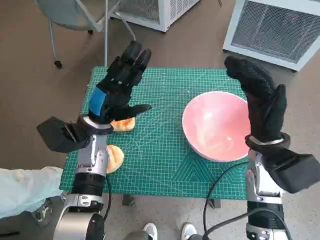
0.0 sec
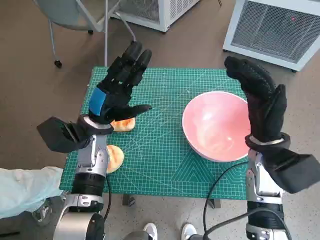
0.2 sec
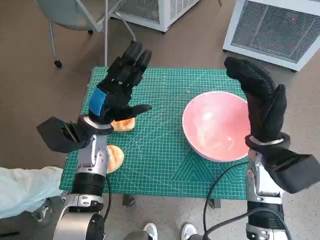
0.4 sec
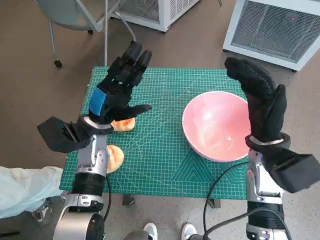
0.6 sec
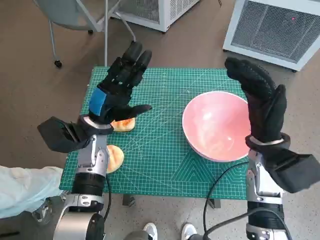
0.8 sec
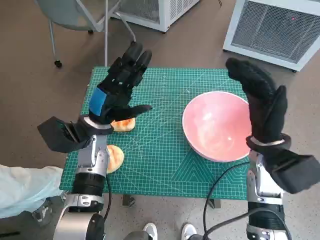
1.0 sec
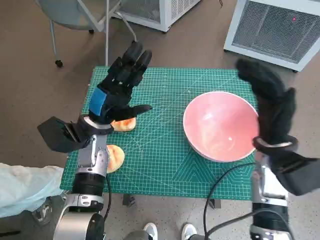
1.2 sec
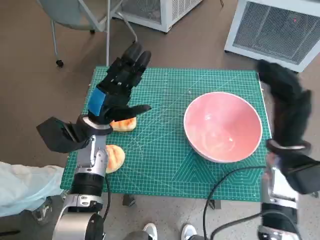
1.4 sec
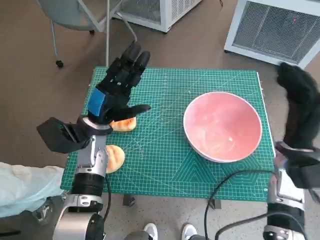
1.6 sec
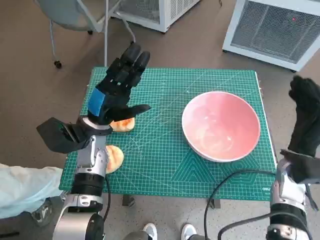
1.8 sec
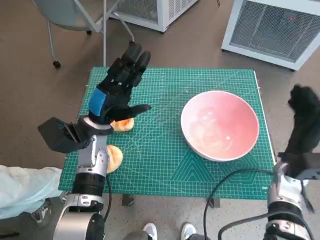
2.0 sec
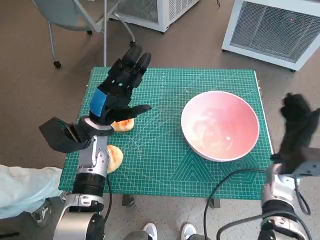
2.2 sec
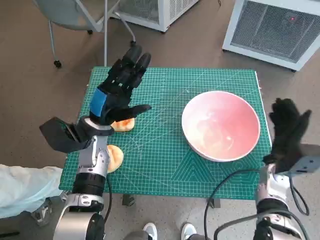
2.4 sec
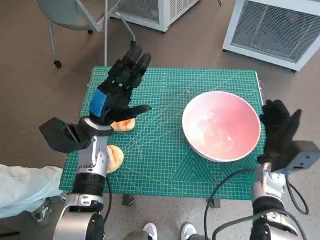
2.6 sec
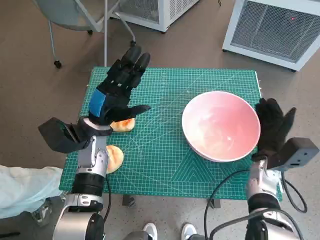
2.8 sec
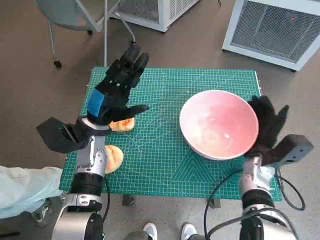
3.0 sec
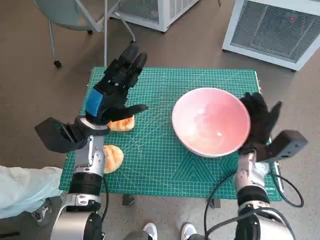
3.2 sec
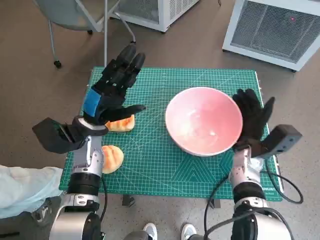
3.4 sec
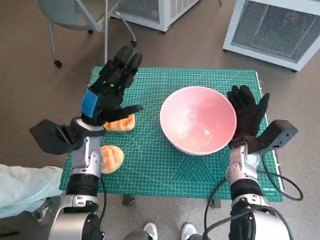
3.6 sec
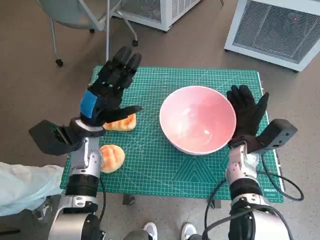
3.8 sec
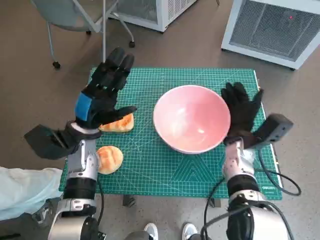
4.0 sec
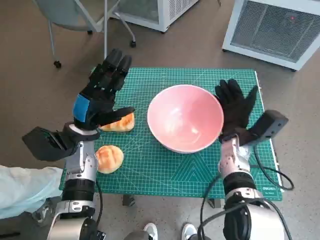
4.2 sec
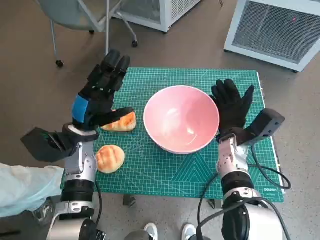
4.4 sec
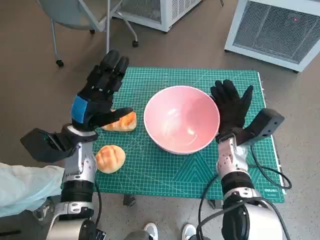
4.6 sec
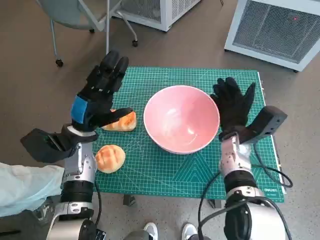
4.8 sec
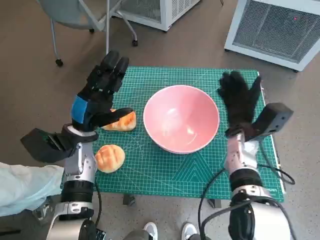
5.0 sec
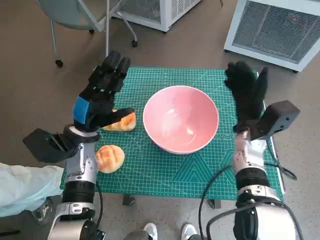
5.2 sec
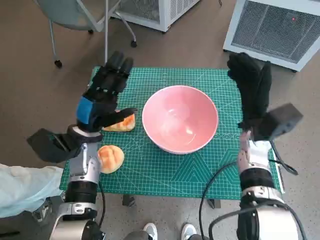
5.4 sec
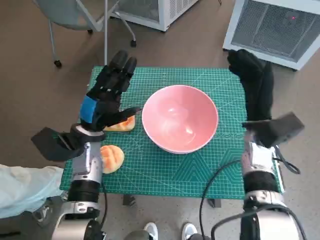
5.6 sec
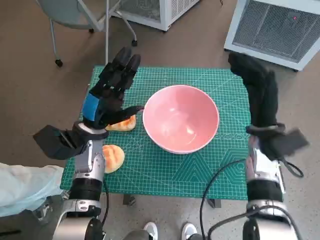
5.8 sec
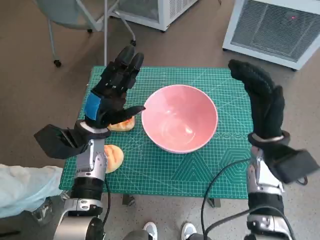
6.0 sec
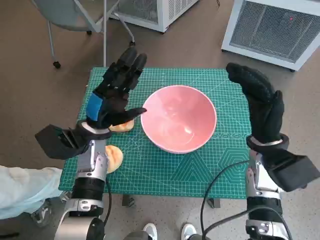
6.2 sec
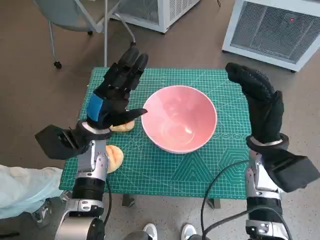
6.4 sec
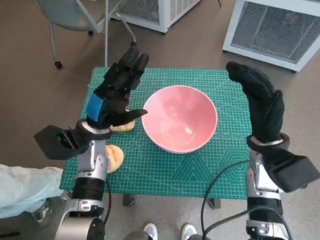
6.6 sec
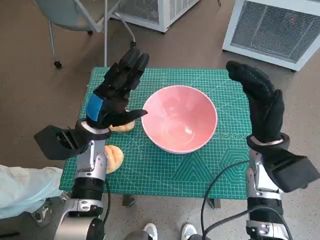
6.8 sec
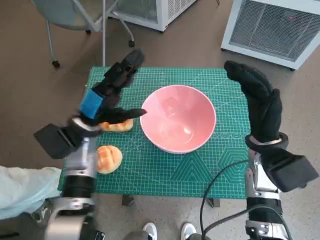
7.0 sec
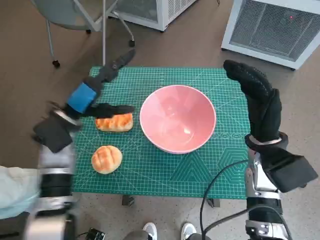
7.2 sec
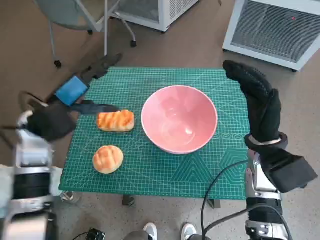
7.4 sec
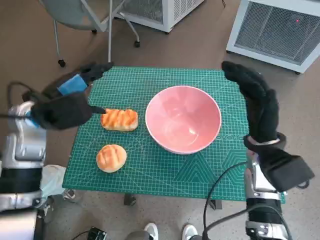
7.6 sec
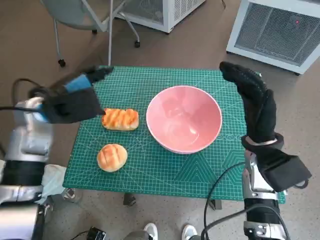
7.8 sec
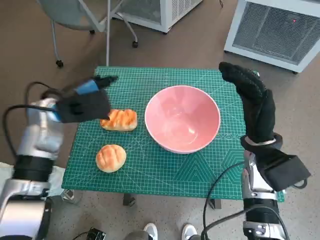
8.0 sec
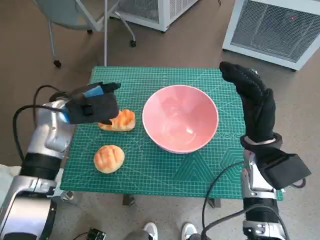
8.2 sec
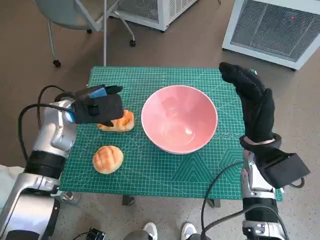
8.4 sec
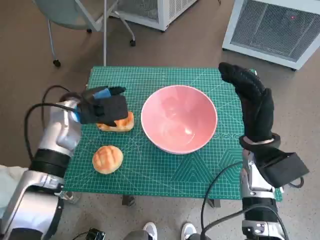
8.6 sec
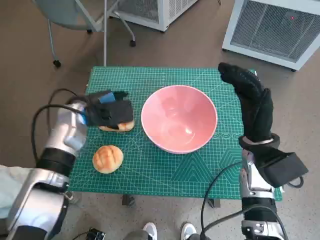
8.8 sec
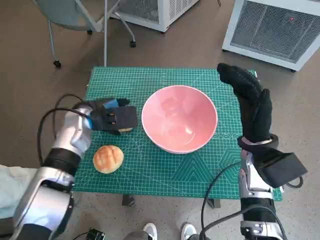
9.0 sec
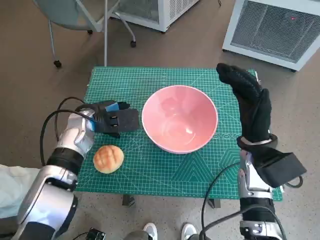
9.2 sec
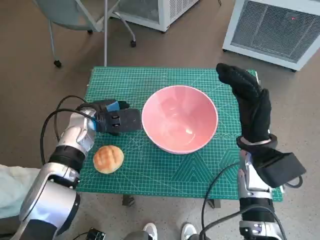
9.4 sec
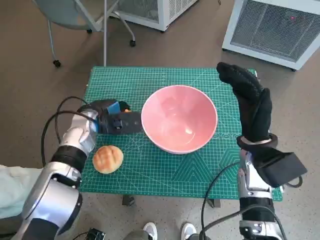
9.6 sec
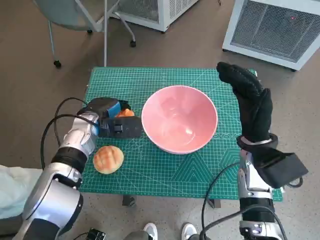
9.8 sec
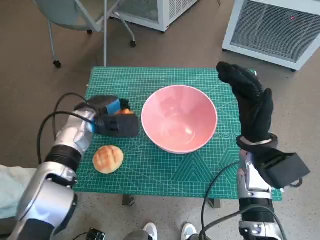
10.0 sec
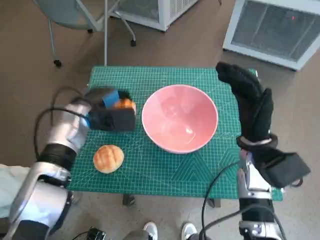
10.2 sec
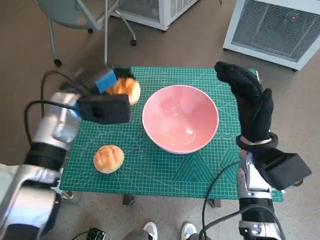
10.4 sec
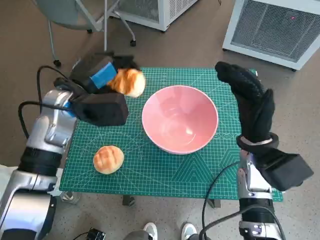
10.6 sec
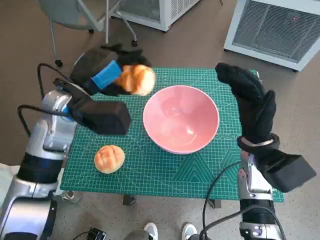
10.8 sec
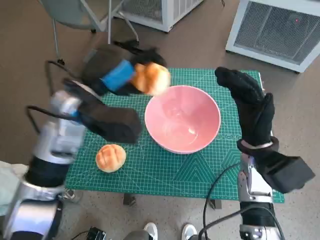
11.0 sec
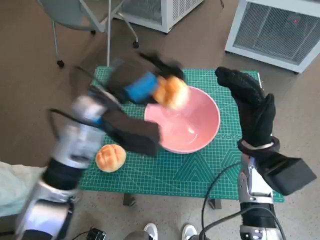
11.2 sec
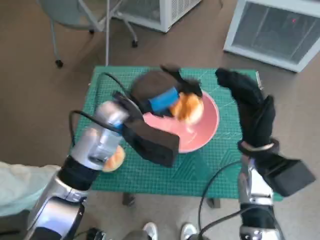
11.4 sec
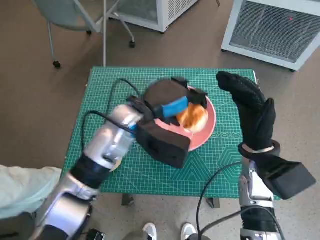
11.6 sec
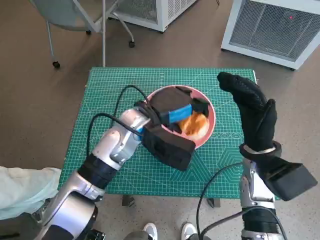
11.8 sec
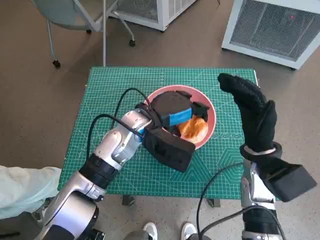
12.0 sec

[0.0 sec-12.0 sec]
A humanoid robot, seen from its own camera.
Task of the whole recording: Push the bowl into the center of the table and put the bread into the bowl.
Step, 0.0 sec to 4.8 sec: Move the pink bowl to the center of table with right hand.
Step, 5.0 sec to 9.6 sec: Grasp the long bread with left hand.
1.6 sec to 3.0 sec: The right hand travels downward by some 10 cm.
3.0 sec to 4.4 sec: The right hand goes roughly 5 cm to the left.
4.4 sec to 6.0 sec: The right hand heads upward, covering about 5 cm.
6.0 sec to 7.6 sec: The left hand shifts some 10 cm upward and to the left.
7.6 sec to 9.0 sec: The left hand heads downward, covering approximately 5 cm.
10.4 sec to 12.0 sec: The left hand heads to the right, covering some 15 cm.

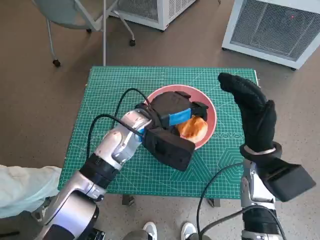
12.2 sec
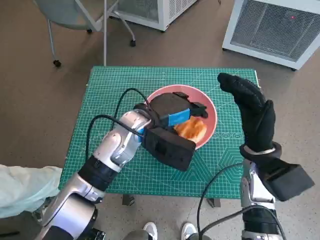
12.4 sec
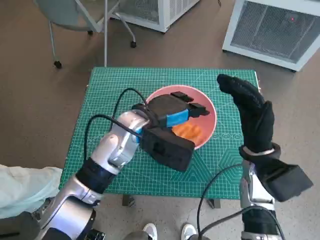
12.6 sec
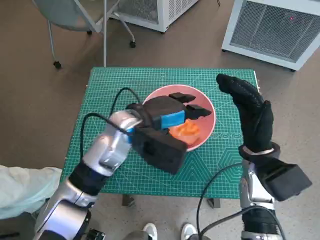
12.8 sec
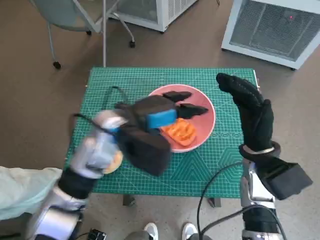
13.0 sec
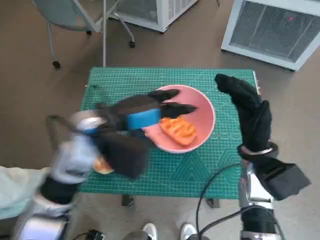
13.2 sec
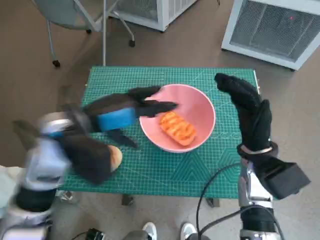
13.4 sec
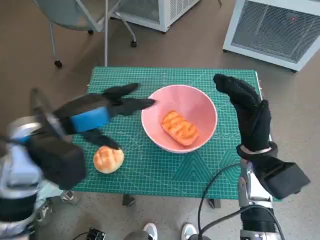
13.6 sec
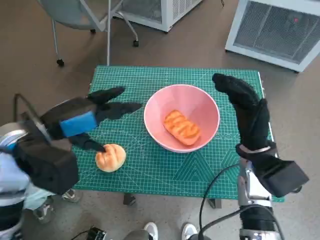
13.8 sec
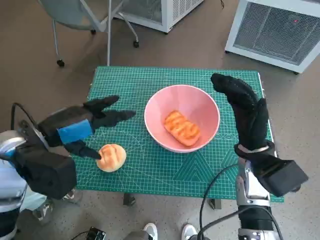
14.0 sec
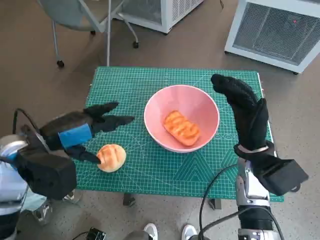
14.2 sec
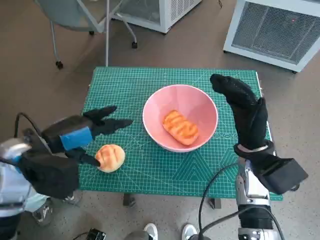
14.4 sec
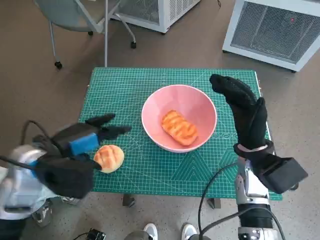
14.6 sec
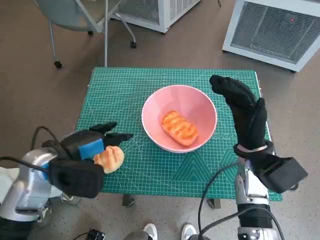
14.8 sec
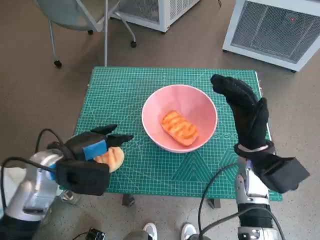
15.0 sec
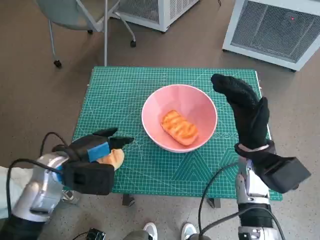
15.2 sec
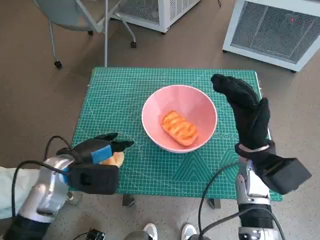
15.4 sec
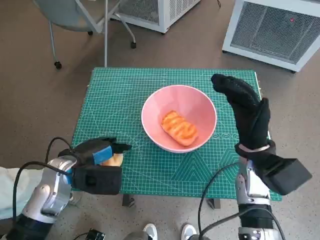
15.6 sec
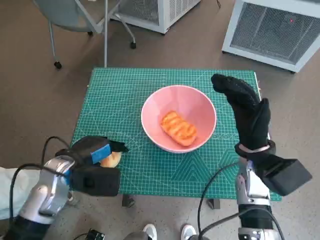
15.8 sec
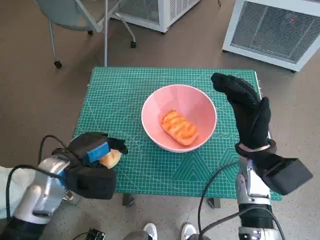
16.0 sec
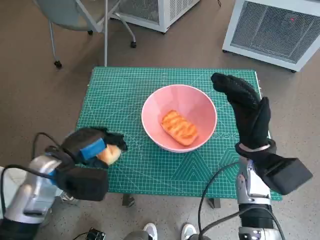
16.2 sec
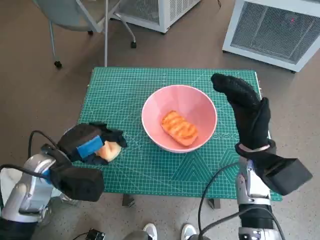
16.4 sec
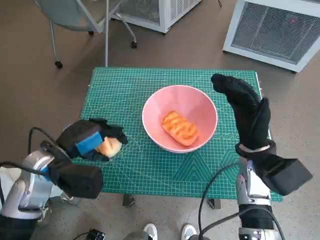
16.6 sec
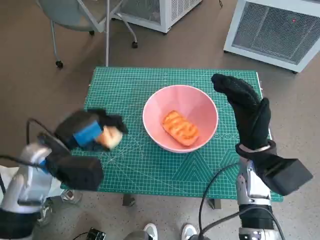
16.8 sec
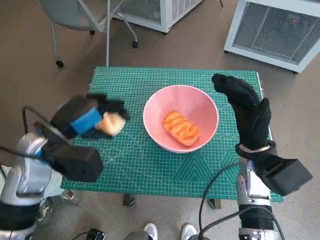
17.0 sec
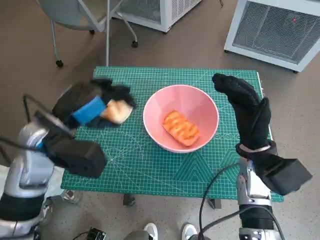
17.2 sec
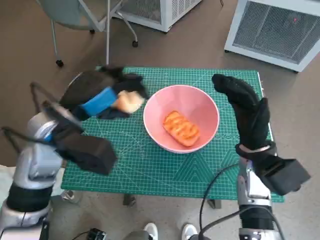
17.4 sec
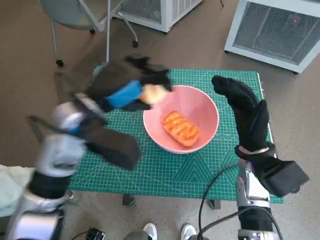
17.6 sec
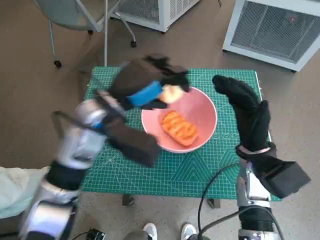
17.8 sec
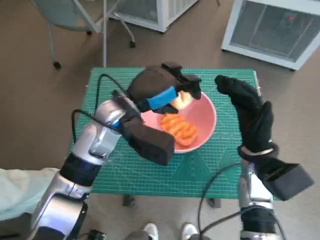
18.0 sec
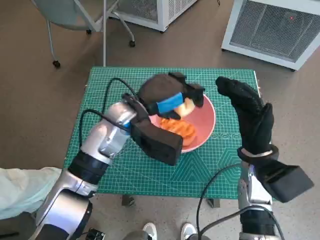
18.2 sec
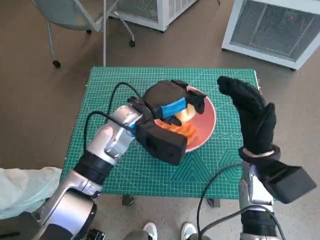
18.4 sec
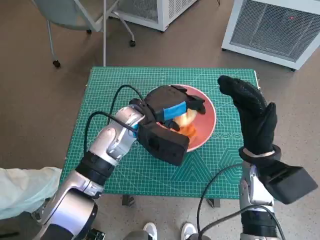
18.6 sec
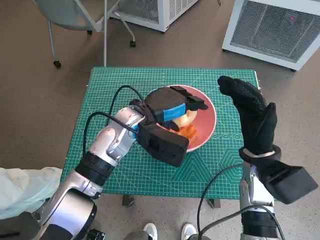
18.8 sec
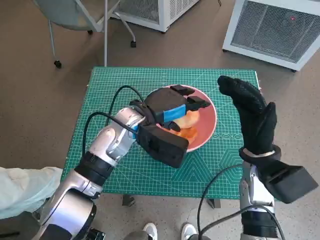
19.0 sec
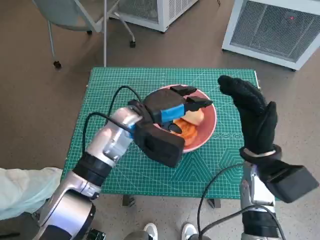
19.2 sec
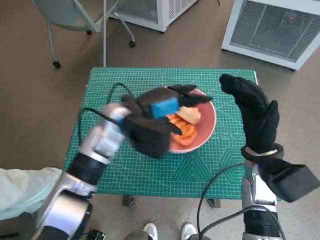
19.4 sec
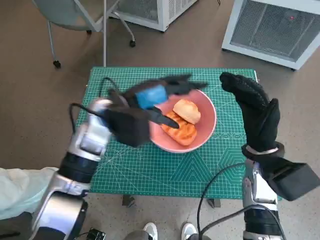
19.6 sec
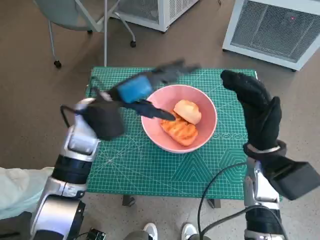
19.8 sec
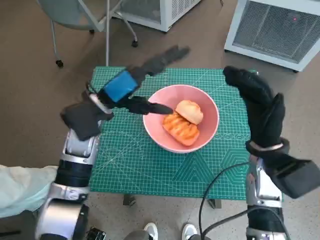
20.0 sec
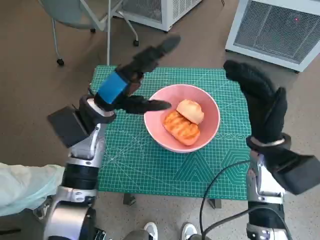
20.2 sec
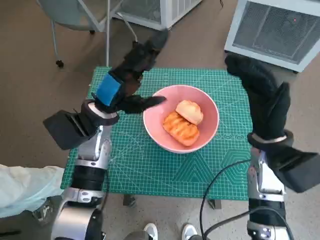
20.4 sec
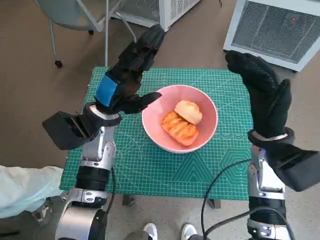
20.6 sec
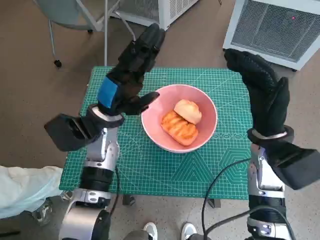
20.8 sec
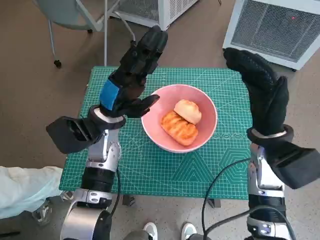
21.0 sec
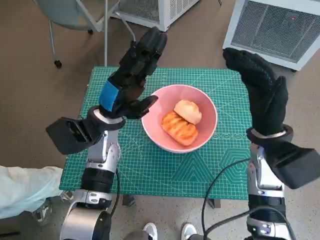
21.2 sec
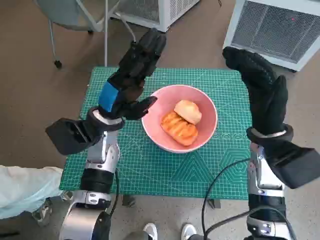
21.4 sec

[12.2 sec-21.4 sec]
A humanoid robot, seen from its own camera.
Task of the whole recording: Push the bowl into the center of the table and put the bread into the bowl.
Step, 12.8 sec to 15.6 sec: Grasp the round bread with left hand.
Step, 15.8 sec to 19.2 sec: Place the round bread in pink bowl with left hand.
12.2 sec to 13.8 sec: The left hand moves to the left, backward and upward, roughly 20 cm.
13.8 sec to 15.2 sec: The left hand heads downward, covering roughly 10 cm.
16.8 sec to 18.4 sec: The left hand moves to the right and forward, some 15 cm.
18.4 sec to 19.8 sec: The left hand is displaced to the left by approximately 5 cm.
19.8 sec to 21.4 sec: The left hand shifts roughly 5 cm downward.
